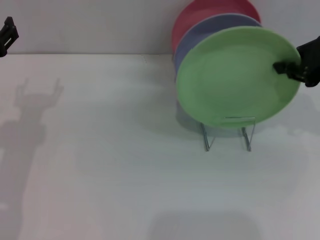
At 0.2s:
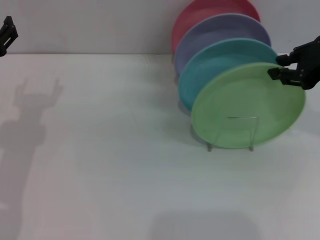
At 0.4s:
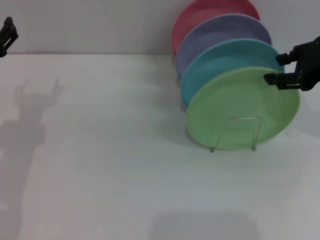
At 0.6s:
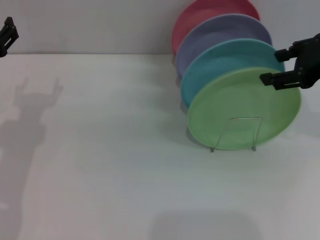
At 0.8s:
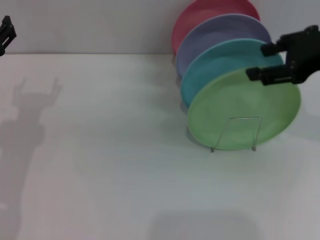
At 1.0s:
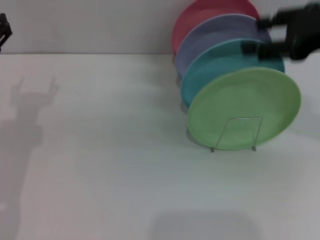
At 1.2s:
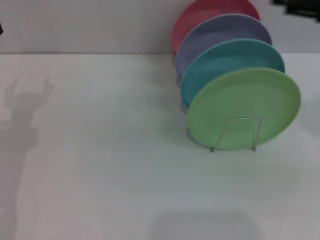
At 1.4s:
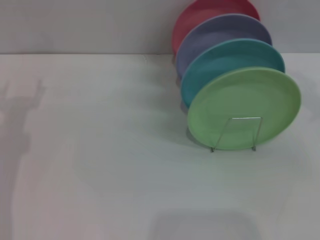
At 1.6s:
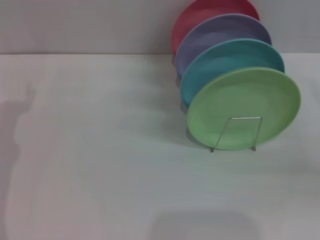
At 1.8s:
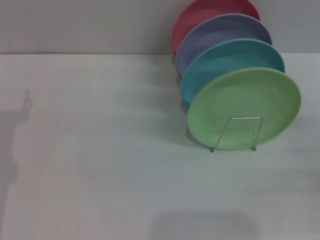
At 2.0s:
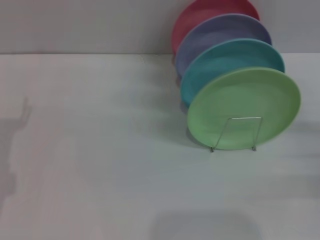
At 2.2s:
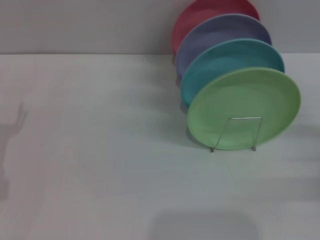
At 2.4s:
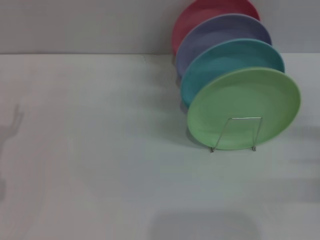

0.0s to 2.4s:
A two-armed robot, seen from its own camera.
Task of the whole recording: Grip the plate with one hand, pass it to the other, then set it on the shelf.
0.0s to 1.2s: The right gripper opens.
1.2s to 2.4s: The right gripper heads downward, covering roughly 20 cm.

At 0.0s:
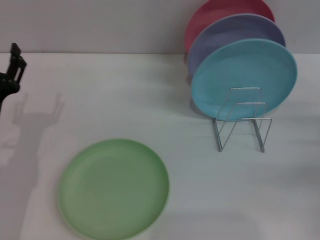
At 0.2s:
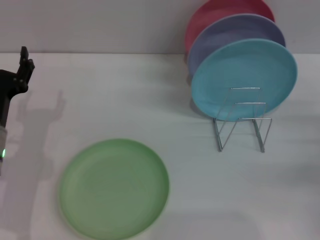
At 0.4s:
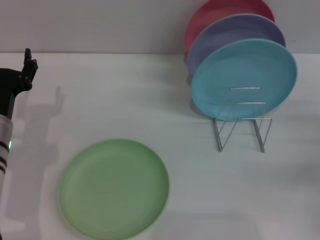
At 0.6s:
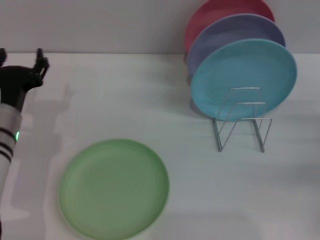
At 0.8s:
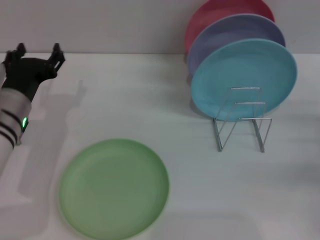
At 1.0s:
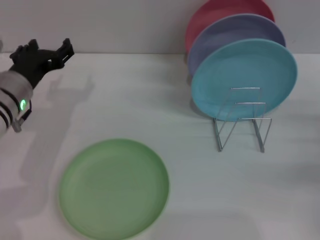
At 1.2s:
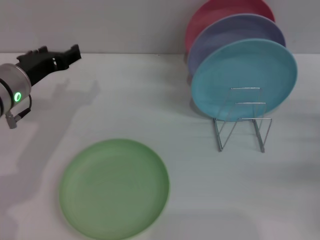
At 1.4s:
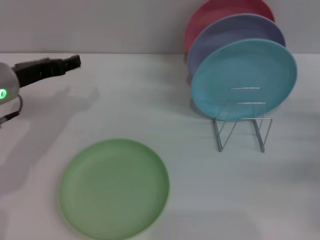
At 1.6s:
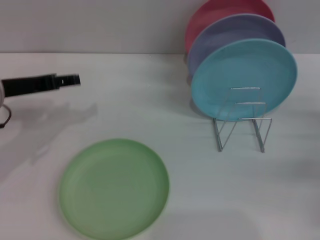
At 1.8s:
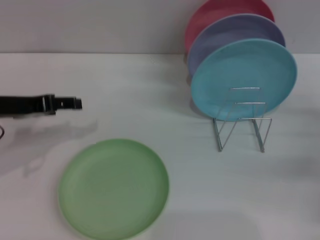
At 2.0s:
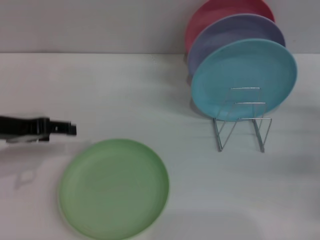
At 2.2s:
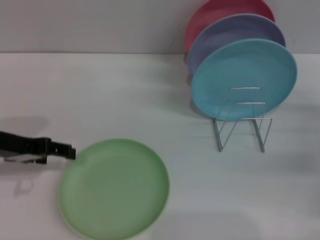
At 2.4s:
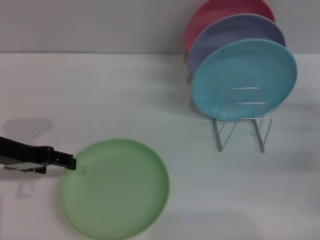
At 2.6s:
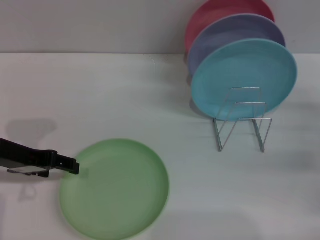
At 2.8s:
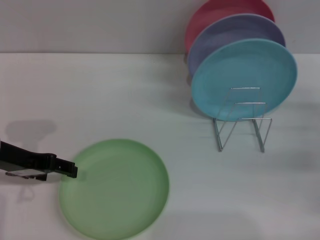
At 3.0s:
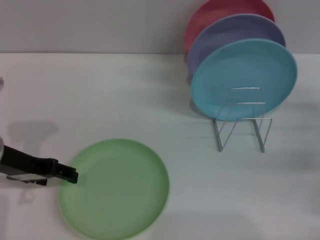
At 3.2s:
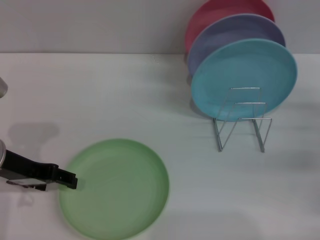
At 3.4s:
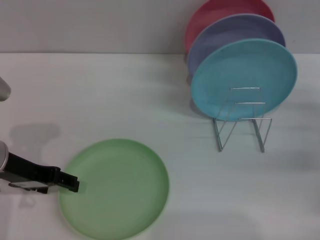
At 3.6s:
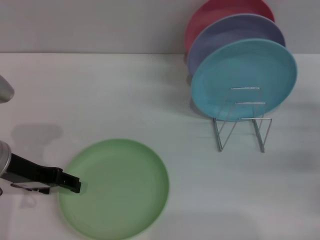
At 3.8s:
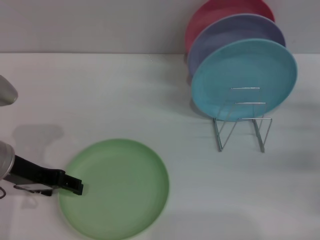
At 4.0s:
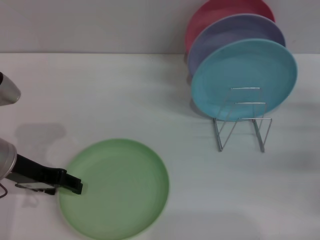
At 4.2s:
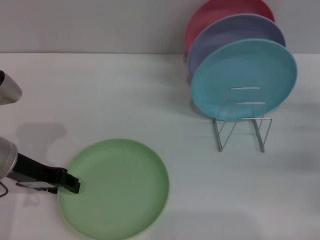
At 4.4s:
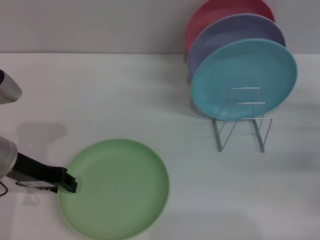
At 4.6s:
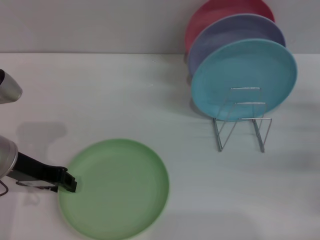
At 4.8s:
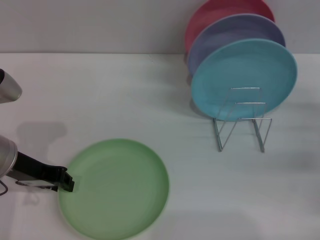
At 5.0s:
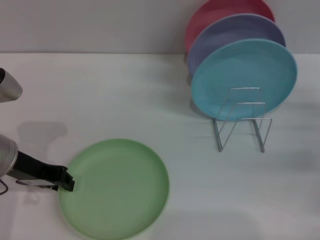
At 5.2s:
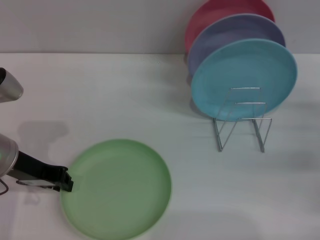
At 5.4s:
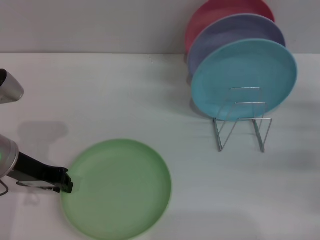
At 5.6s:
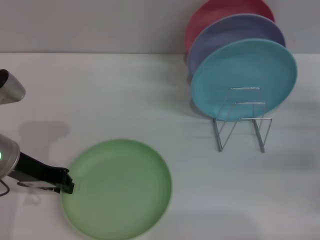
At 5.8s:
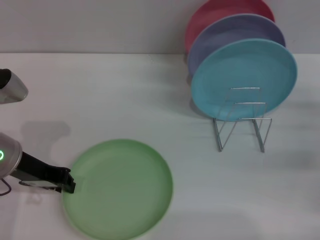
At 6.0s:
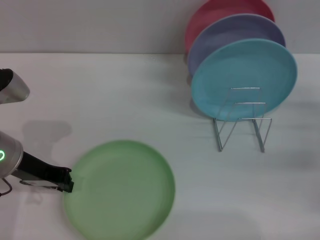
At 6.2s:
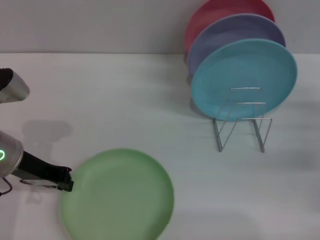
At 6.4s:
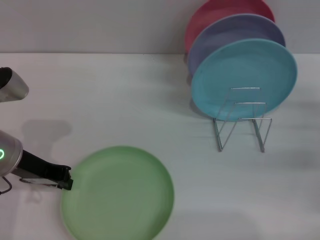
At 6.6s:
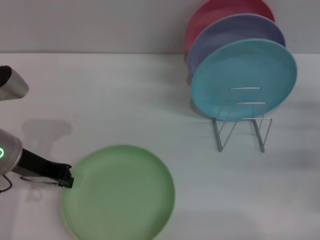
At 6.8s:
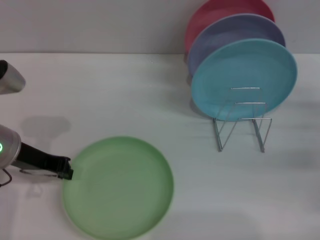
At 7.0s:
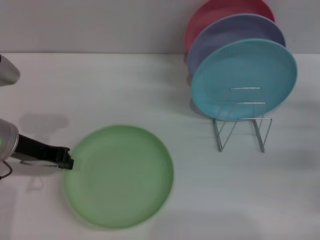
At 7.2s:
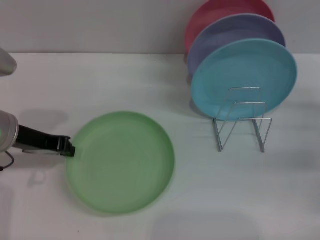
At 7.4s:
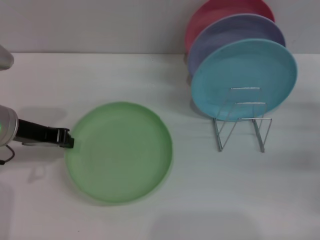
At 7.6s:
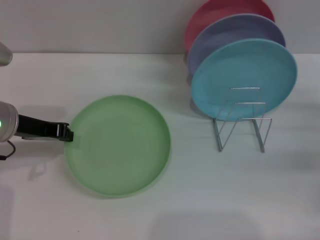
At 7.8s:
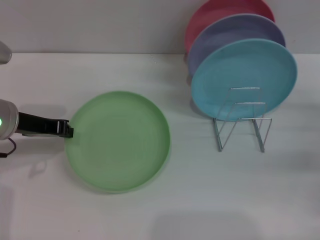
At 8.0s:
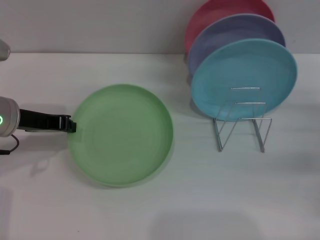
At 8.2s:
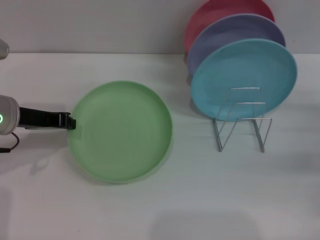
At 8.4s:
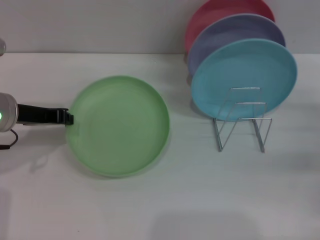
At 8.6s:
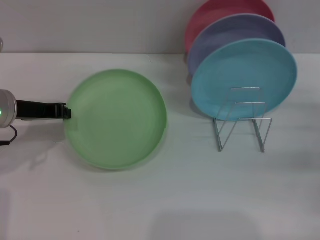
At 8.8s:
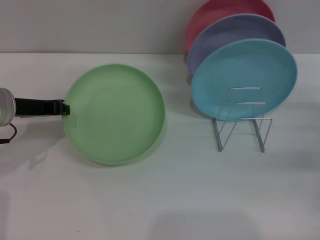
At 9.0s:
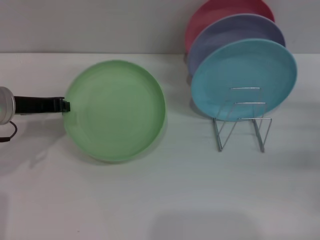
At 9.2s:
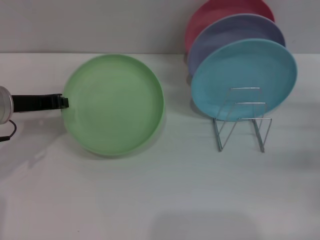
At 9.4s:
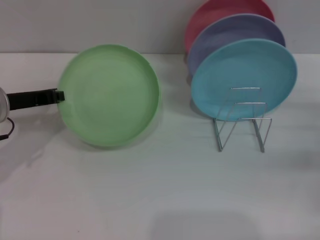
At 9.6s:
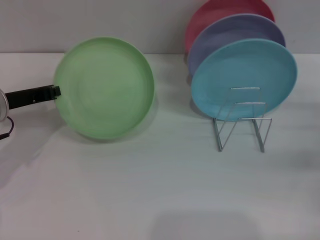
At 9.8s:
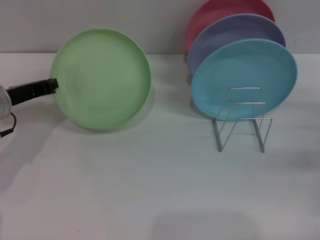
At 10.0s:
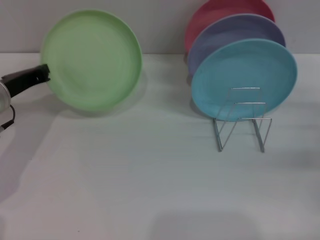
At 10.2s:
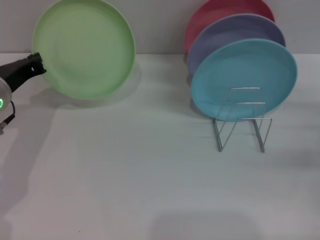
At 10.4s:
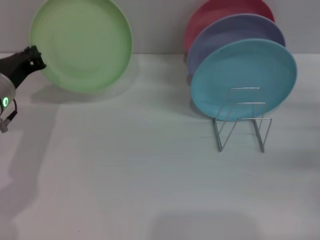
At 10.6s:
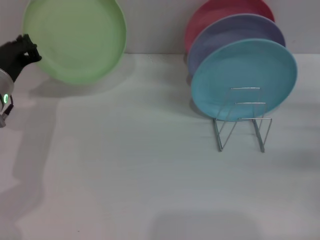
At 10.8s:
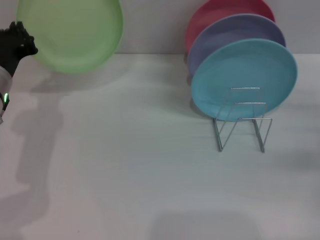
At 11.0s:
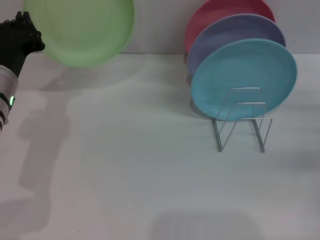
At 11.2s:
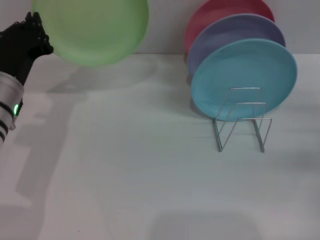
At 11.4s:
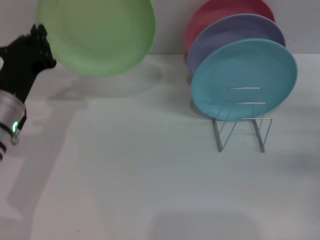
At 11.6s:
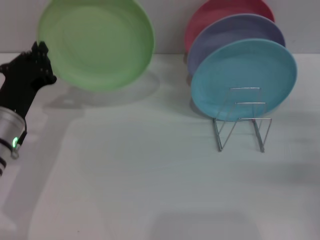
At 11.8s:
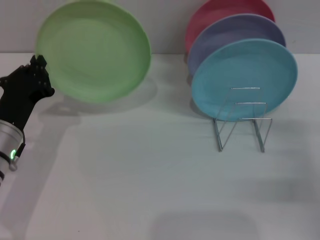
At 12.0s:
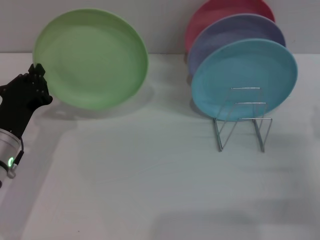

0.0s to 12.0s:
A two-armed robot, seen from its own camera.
Task of the whole recording: Grip the plate with one hand, pass it to the other, then set it on the shelf.
Step, 0.0s to 8.4s: Pick up the plate with the left gripper.
0.0s to 1.6s: The left gripper shifts about 15 cm upward and forward.
3.0s to 4.4s: The grippers make only small movements.
4.4s to 6.0s: The left gripper closes up.
6.0s to 7.6s: The grippers move only a little.
7.6s to 9.0s: There are only small adjustments of the grippers.
10.4s to 12.0s: The left gripper travels backward and downward by roughly 10 cm. The right gripper is displaced backward and to the left by about 10 cm.

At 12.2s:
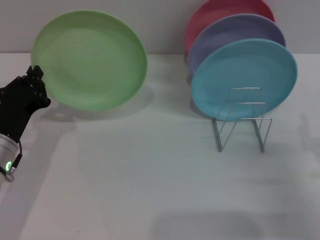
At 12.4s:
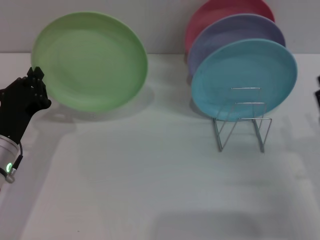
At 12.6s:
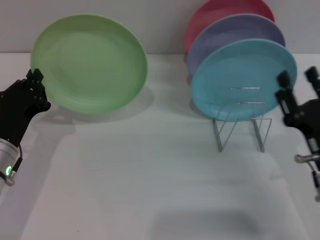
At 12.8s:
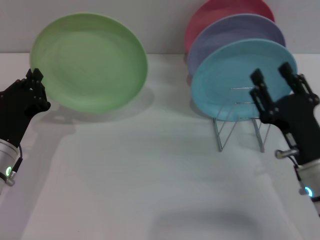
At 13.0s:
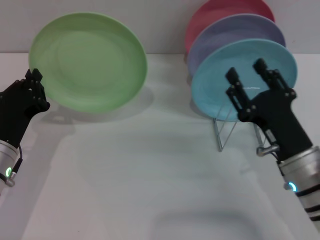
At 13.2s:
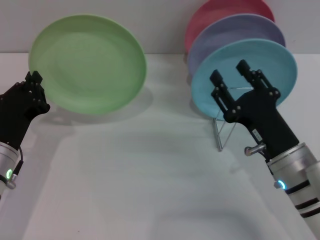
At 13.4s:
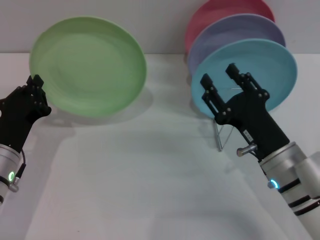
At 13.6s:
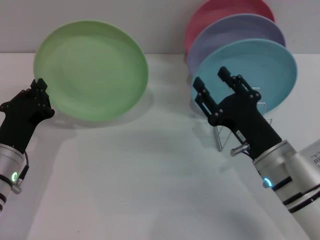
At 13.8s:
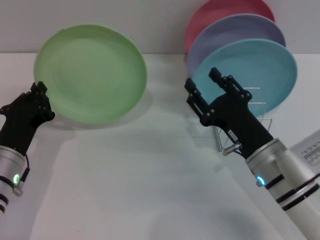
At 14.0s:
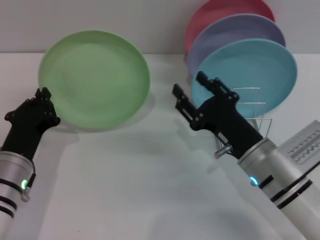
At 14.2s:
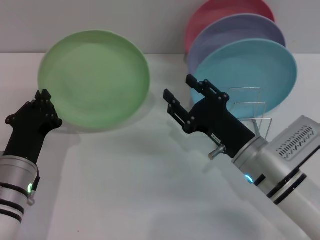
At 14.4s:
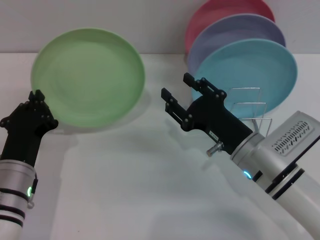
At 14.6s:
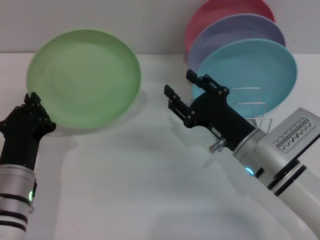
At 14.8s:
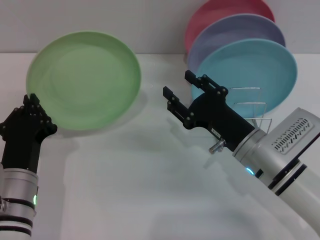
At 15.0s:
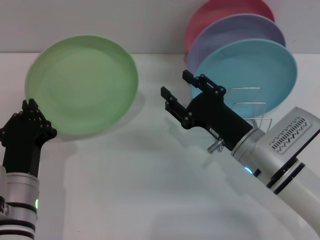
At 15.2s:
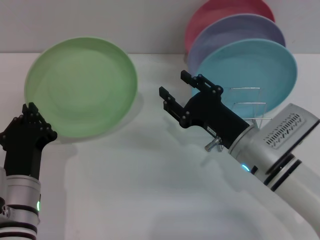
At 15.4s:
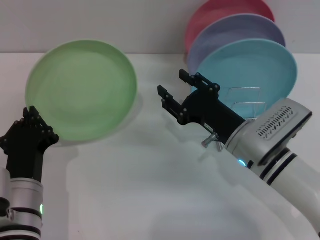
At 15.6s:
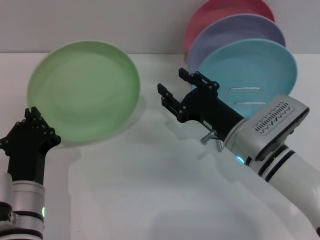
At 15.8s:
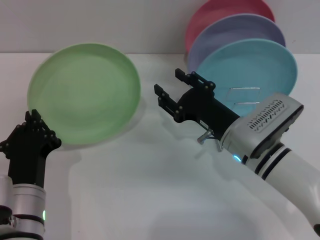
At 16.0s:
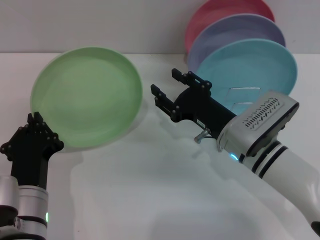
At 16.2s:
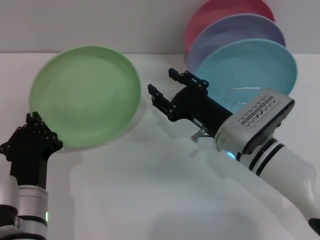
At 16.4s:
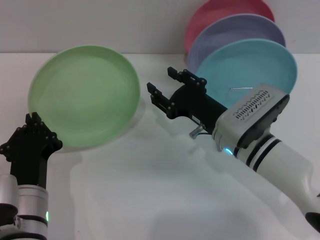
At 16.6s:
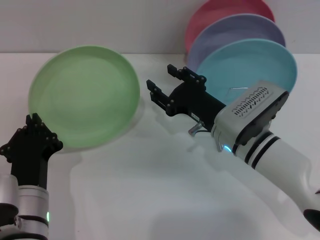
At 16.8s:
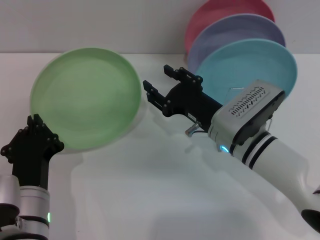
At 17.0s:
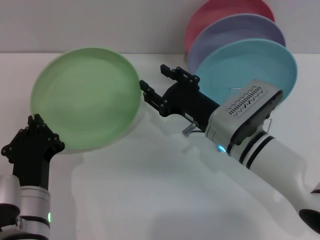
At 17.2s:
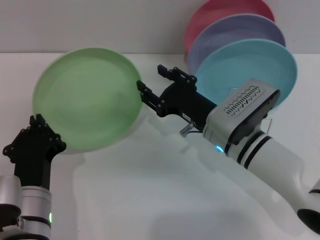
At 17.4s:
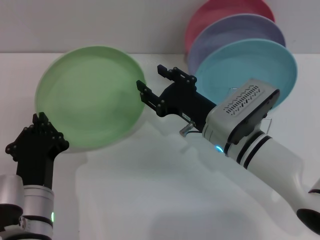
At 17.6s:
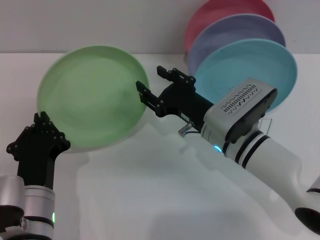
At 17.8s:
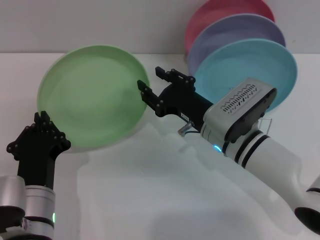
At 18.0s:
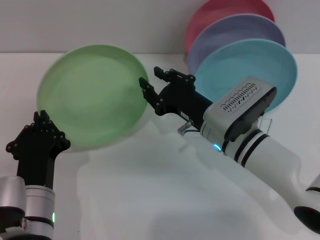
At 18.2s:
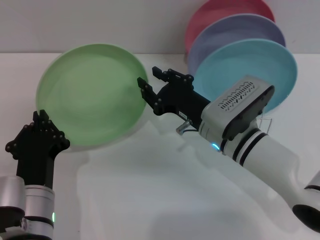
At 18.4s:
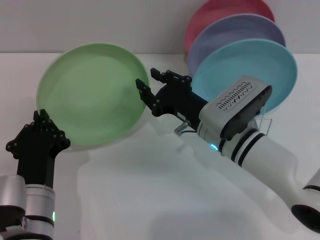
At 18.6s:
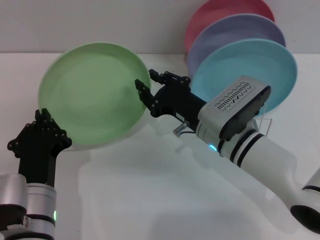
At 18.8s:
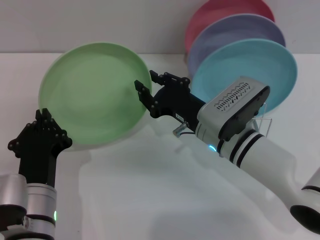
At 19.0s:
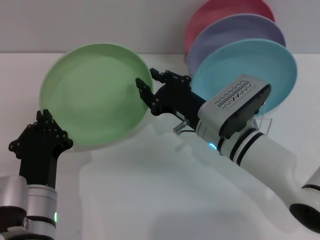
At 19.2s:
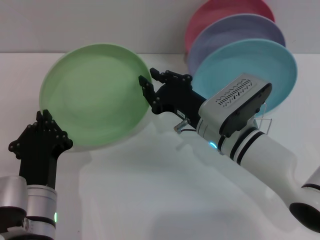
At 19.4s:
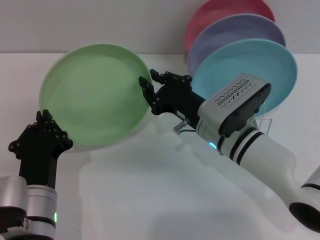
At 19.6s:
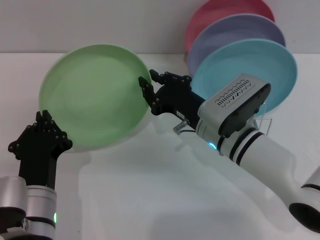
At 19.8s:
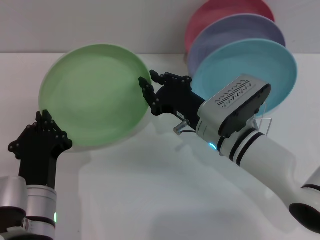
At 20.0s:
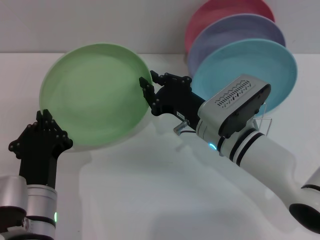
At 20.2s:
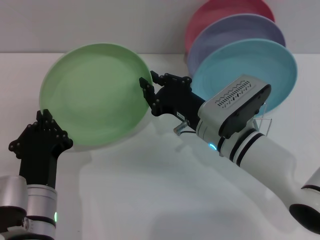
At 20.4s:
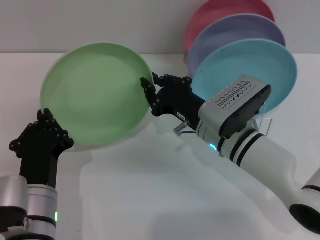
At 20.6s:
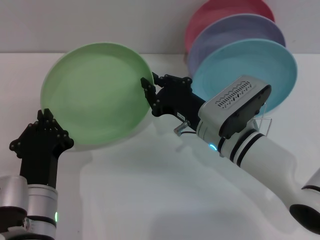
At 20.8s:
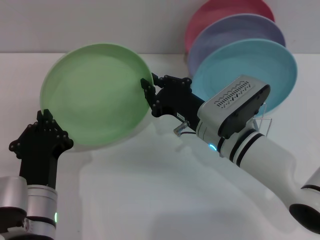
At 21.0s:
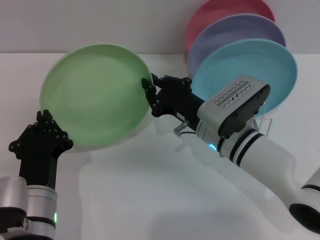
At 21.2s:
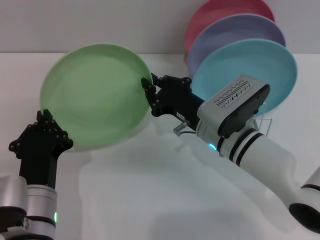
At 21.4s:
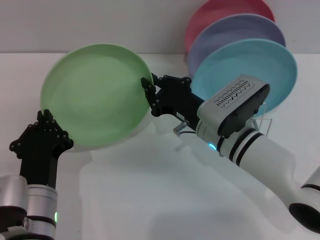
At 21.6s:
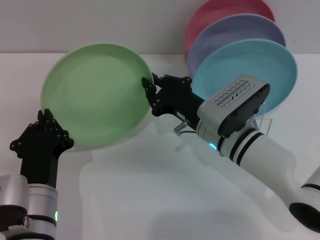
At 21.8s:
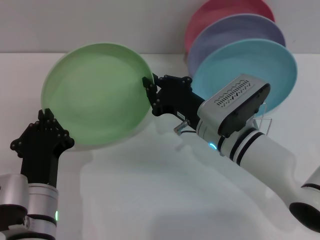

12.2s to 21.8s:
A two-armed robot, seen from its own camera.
Task of the whole recording: Grip the plate with one hand, pass it to the other, then set it on the shelf.
12.2s to 13.8s: The right gripper is displaced to the left and forward by roughly 15 cm.
13.8s to 15.4s: The left gripper shifts some 10 cm backward and to the right.
15.4s to 17.0s: The grippers move only a little.
17.0s to 21.8s: The two grippers keep their place.
